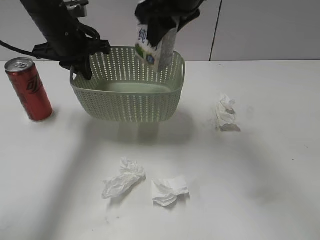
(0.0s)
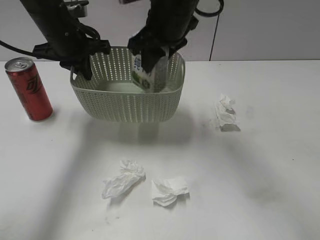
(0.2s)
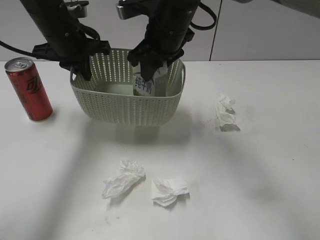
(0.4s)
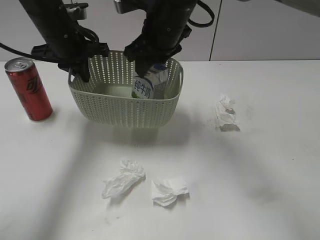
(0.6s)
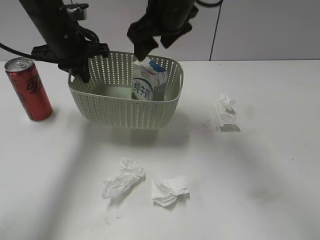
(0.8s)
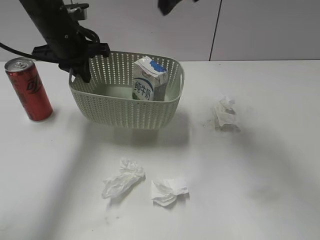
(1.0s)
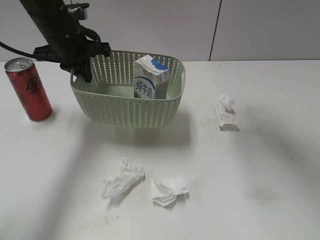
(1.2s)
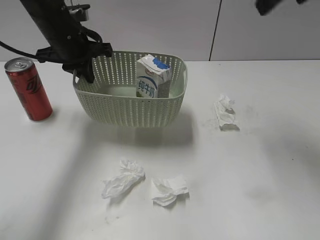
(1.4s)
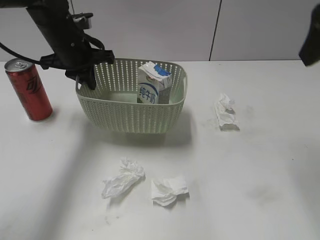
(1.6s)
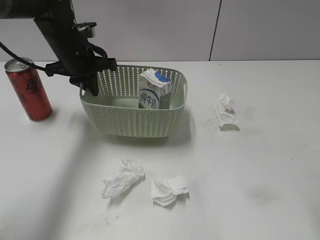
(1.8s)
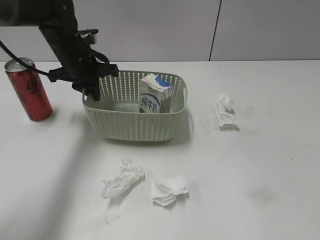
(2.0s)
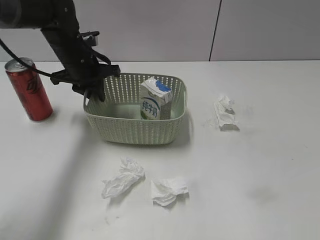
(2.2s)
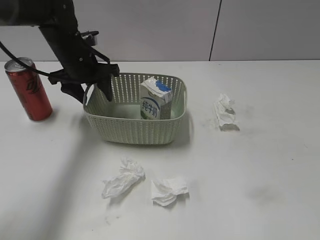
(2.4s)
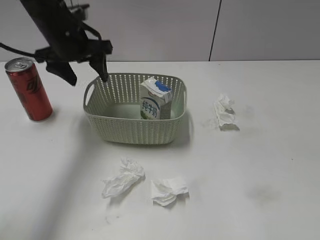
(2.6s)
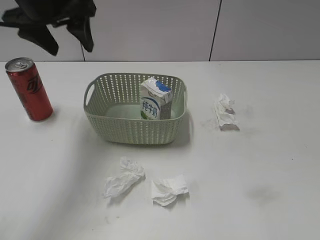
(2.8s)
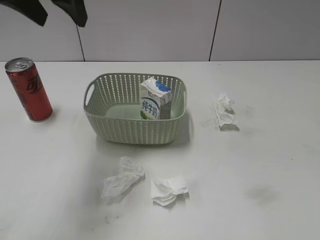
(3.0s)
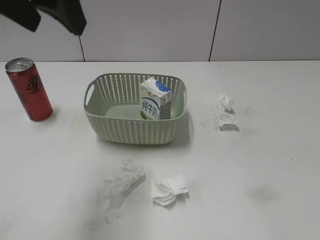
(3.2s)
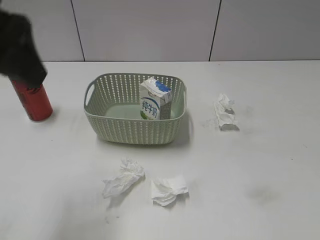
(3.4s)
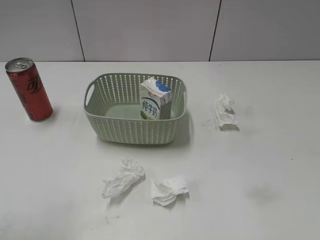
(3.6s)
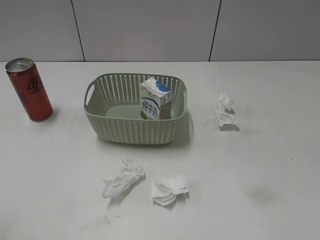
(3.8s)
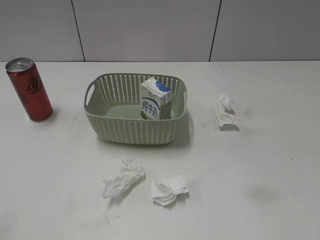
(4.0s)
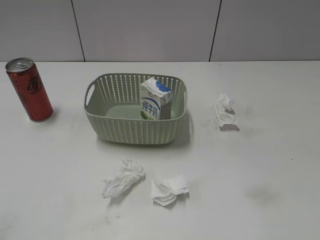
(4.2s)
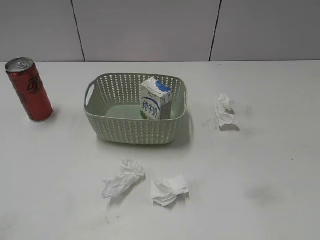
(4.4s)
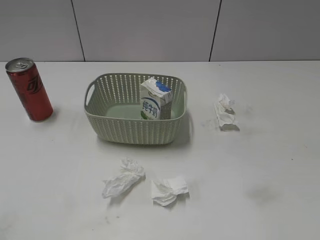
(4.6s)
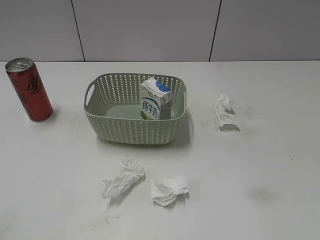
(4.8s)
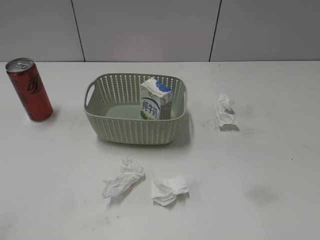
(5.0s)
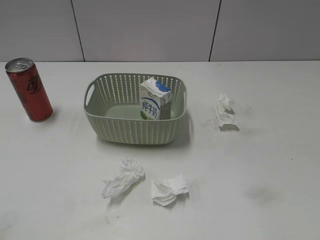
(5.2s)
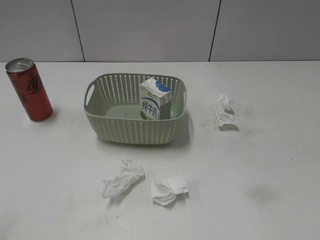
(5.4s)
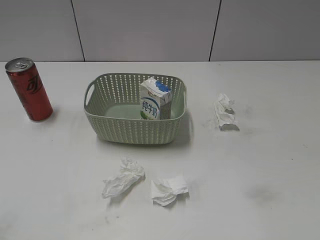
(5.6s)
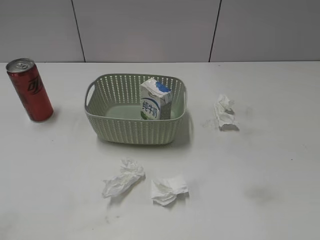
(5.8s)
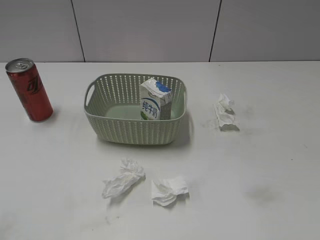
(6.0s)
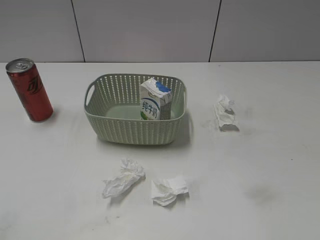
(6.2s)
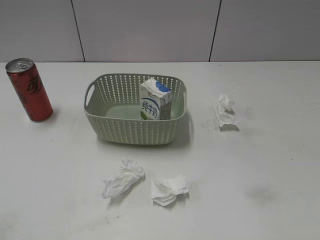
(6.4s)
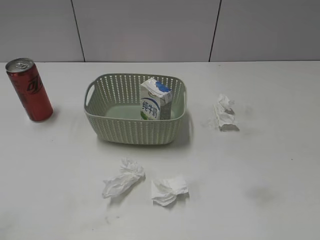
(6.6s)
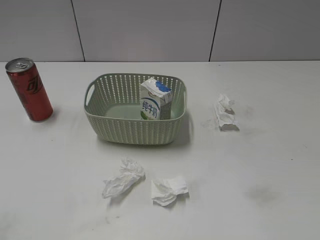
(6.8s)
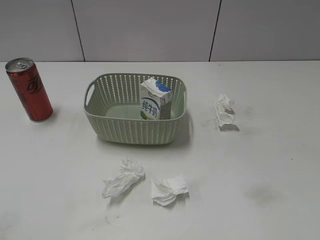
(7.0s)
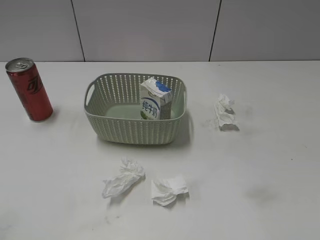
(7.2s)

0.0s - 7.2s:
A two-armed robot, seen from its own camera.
Step, 1.0s - 2.6s: Place the basket on the table with left gripper.
0.0s - 1.4s: The right gripper travels to the right and upward by approximately 15 cm, and opens up.
1.4s - 2.8s: The left gripper heads upward, covering some 5 cm, and opens up. Meanwhile the right gripper is displaced backward and to the right by approximately 25 cm.
2.8s - 4.4s: The left gripper shifts approximately 35 cm backward.

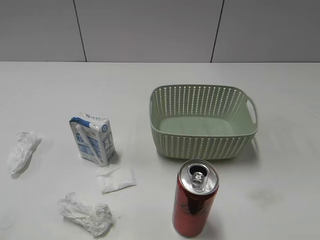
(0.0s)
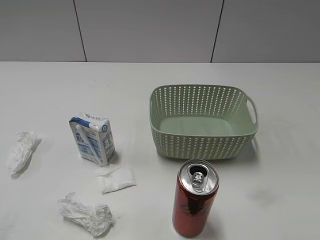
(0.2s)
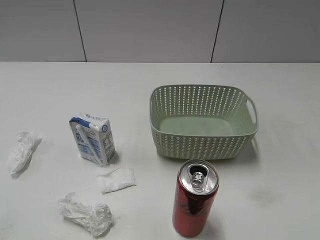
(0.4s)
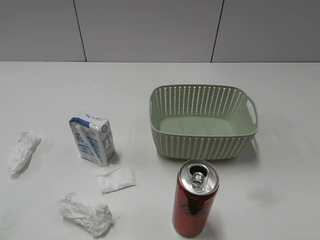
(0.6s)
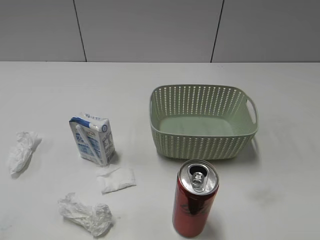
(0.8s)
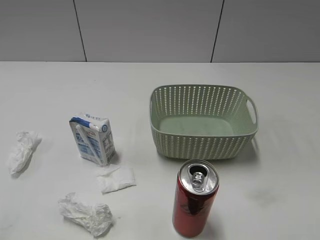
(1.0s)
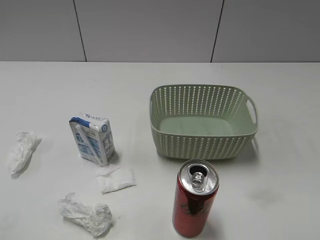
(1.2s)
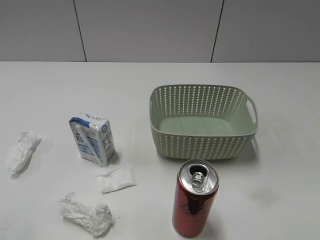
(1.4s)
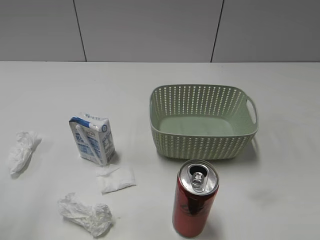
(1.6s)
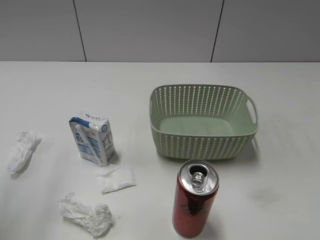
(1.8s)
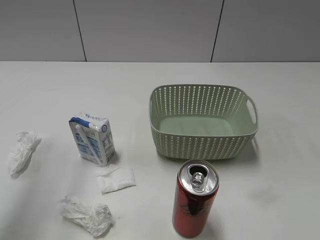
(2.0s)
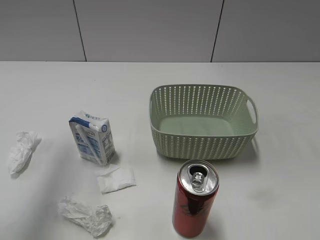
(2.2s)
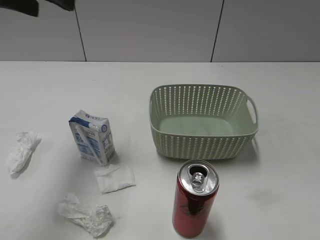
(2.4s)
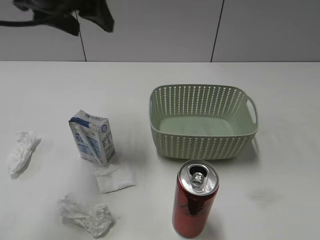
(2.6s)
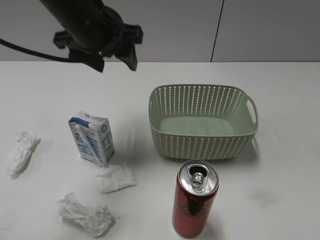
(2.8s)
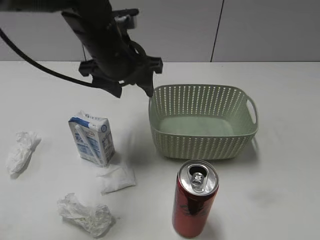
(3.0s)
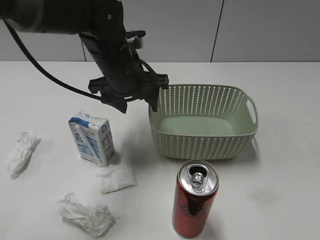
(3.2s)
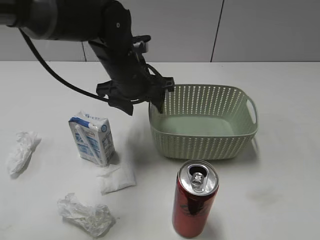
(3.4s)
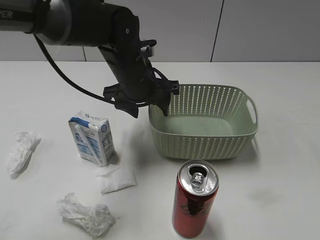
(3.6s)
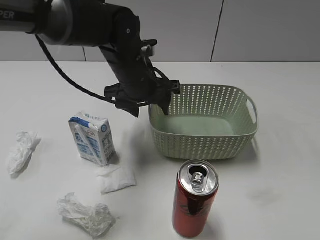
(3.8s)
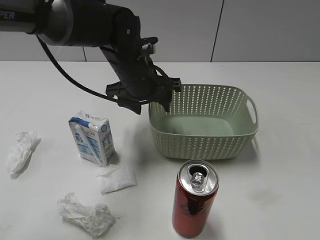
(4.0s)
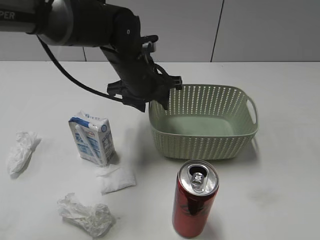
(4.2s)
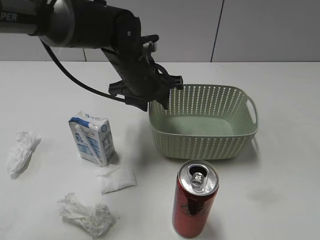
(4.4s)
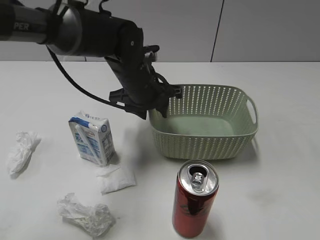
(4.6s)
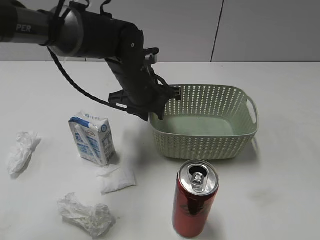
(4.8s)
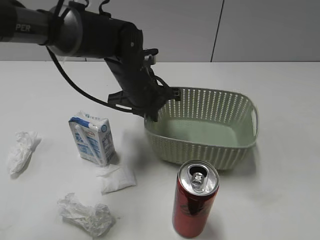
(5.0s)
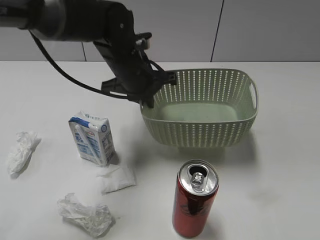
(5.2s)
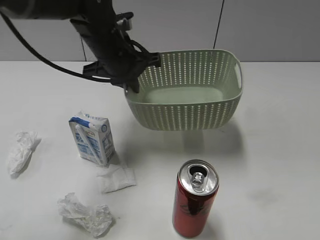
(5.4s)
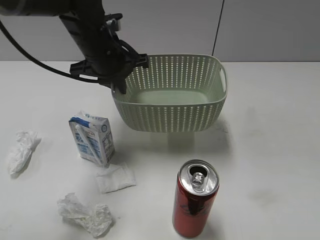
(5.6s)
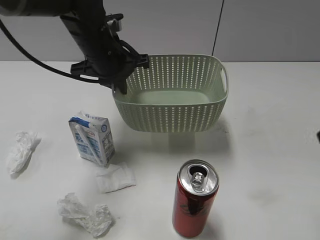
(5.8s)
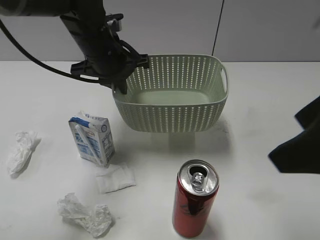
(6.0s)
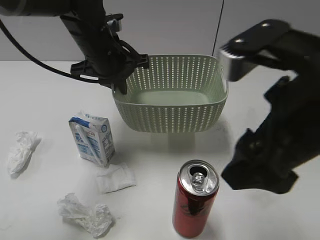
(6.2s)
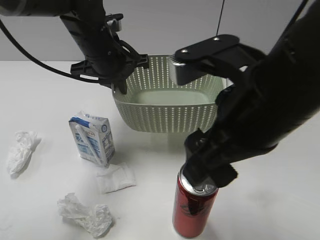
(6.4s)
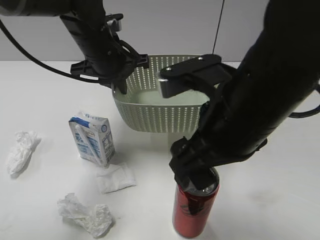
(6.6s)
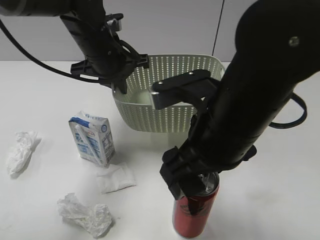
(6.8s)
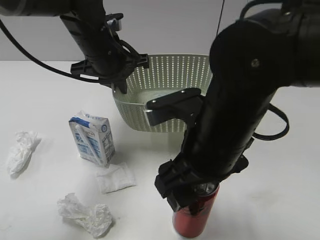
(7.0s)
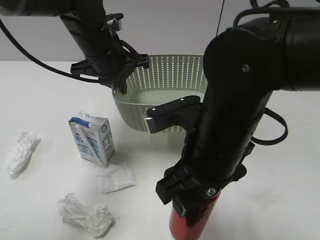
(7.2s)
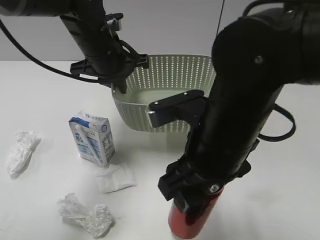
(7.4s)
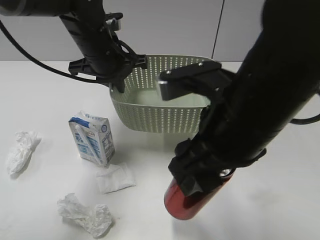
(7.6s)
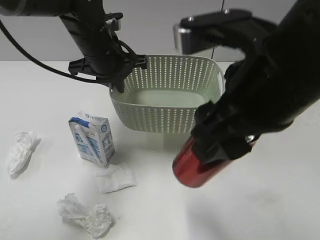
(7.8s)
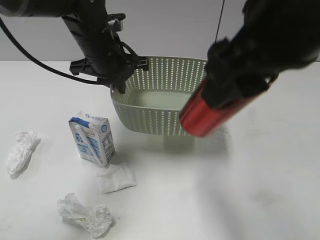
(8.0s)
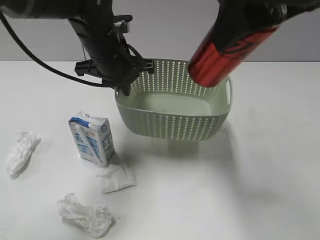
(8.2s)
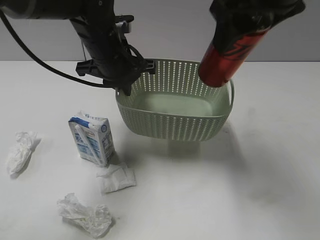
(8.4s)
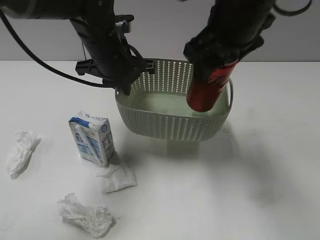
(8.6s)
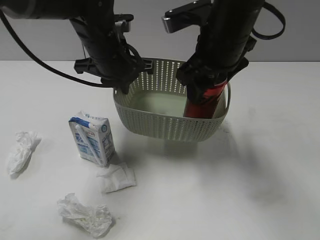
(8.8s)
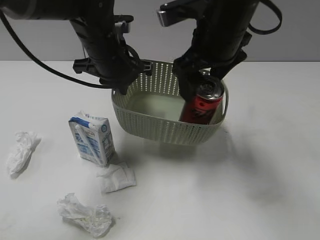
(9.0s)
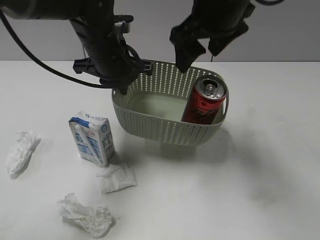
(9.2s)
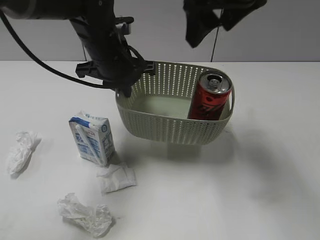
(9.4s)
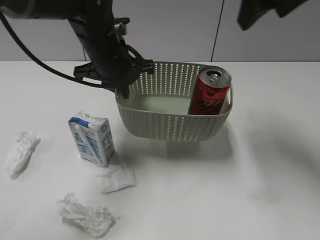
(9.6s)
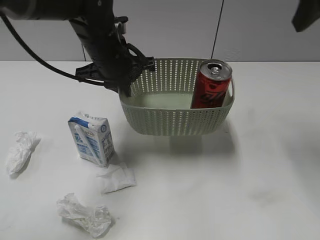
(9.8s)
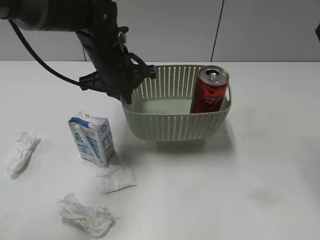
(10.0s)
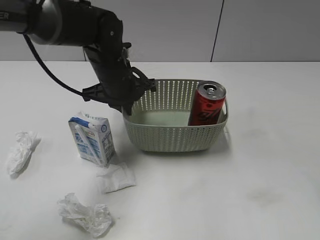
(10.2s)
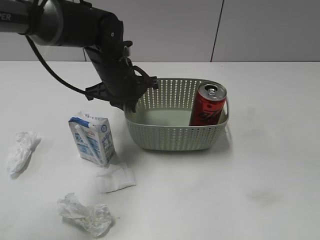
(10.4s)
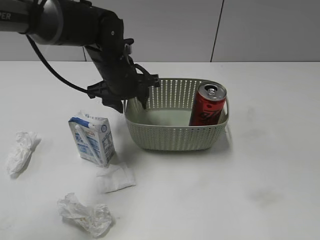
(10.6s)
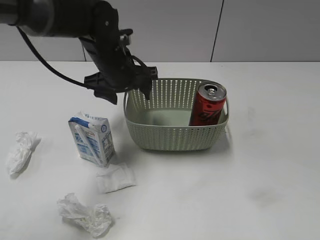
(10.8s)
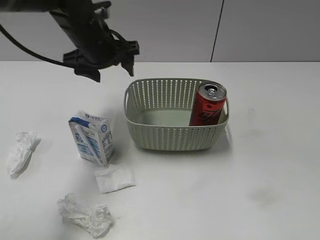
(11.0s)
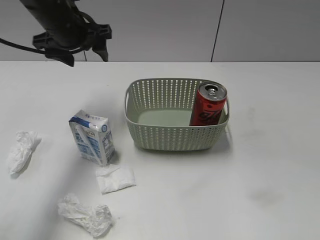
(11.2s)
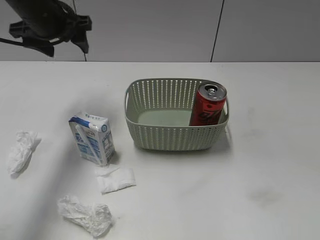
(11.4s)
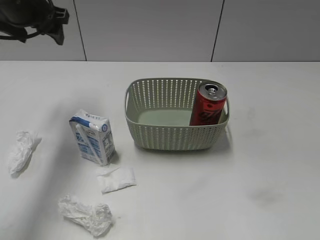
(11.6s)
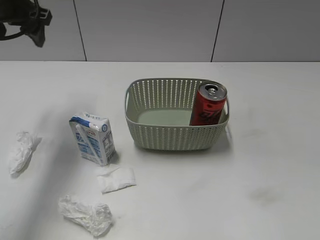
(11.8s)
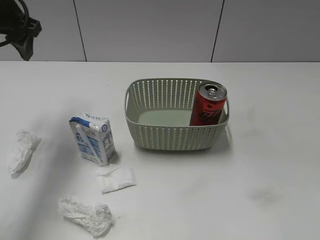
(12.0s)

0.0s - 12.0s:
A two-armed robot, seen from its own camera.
Step, 2.4s - 5.0s: Grasp the basket with left gripper.
Step, 5.2s - 5.6s: Lift the basket with left gripper.
Step, 5.8s - 7.2s: Grasp the cola can with right gripper.
Step, 7.4s - 9.2s: Place the cola can in the basket with right gripper.
Step, 9.4s - 10.8s: Place the basket on the table with left gripper.
1.6s - 3.0s: The left gripper goes roughly 35 cm to the right, forward and downward.
3.0s - 4.4s: The left gripper heads downward, covering some 5 cm.
4.4s - 6.0s: The right gripper travels forward, to the left and upward by some 20 cm, and opens up; the left gripper moves to the left, approximately 5 cm, and closes up.
6.0s - 7.6s: The right gripper shifts approximately 15 cm to the left and downward, and closes up.
7.6s - 9.0s: The right gripper moves forward, about 15 cm, and opens up.
9.0s - 10.4s: The right gripper is displaced to the right, backward and upward by about 30 cm. Meanwhile the left gripper is displaced downward by about 5 cm.
10.4s - 12.0s: The right gripper heads backward and downward, covering roughly 20 cm; the left gripper heads to the left and upward, covering roughly 20 cm, and opens up.

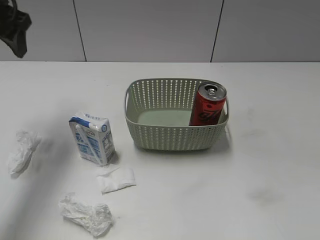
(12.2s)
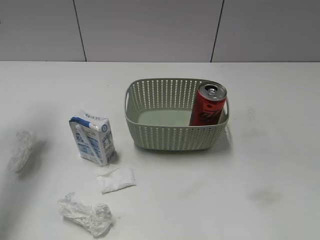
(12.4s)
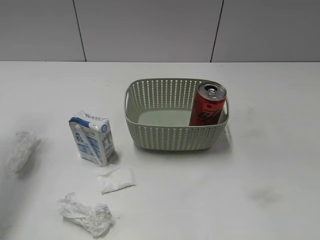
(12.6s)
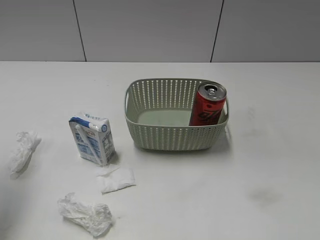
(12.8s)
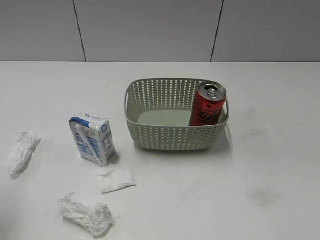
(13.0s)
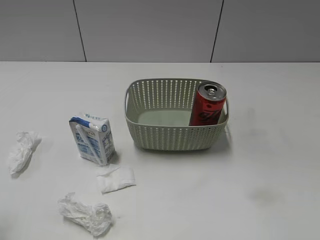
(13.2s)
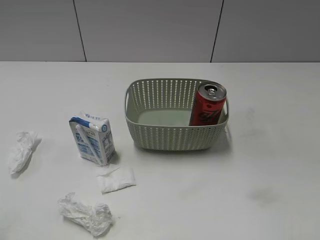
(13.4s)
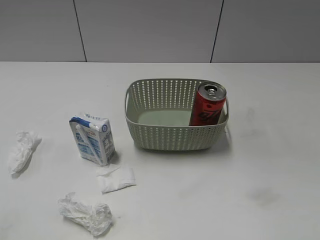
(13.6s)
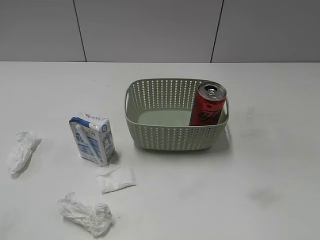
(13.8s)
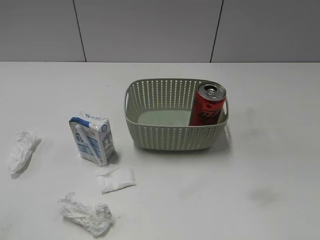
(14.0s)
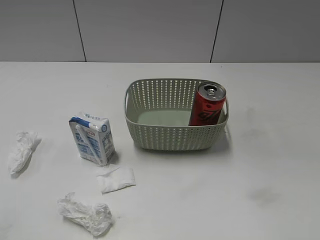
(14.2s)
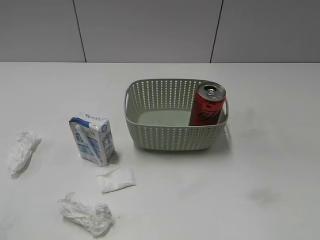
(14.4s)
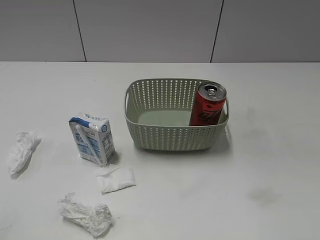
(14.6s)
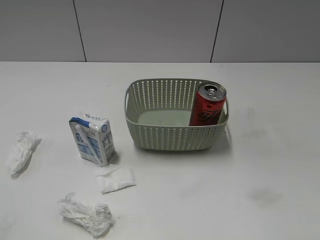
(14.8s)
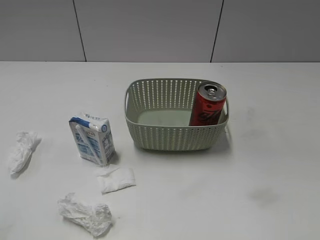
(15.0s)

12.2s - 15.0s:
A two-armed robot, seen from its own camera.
12.2s - 13.6s: The left gripper heads backward, covering approximately 35 cm.
